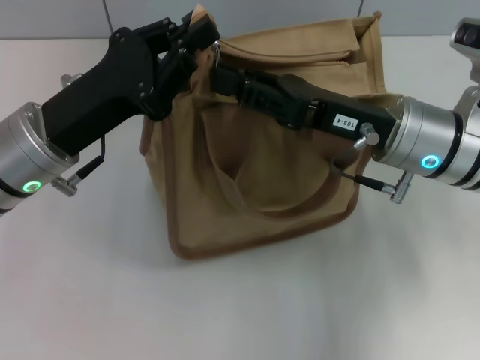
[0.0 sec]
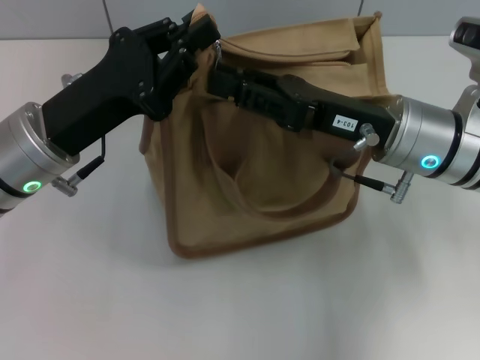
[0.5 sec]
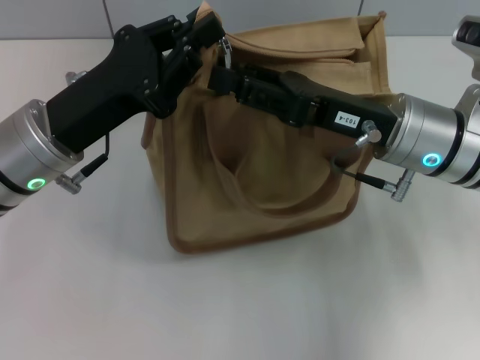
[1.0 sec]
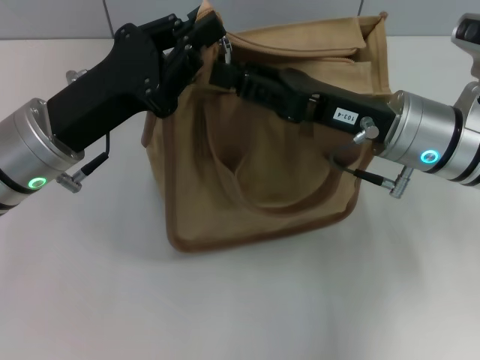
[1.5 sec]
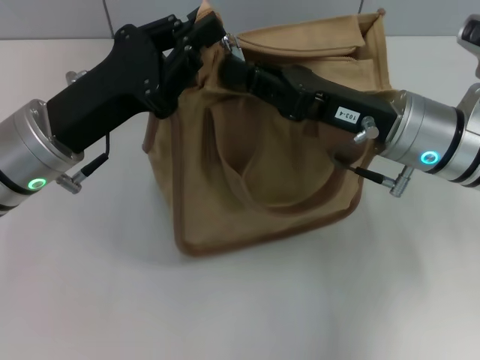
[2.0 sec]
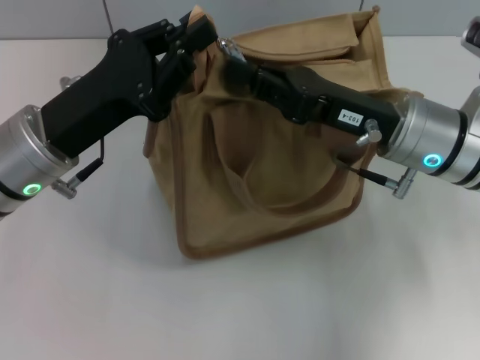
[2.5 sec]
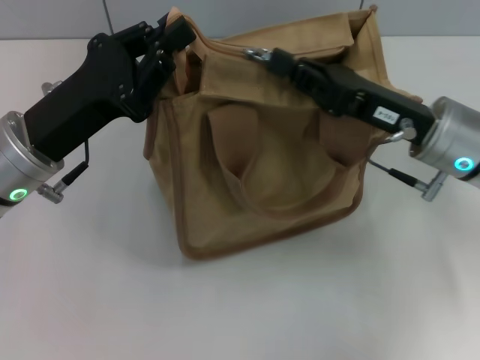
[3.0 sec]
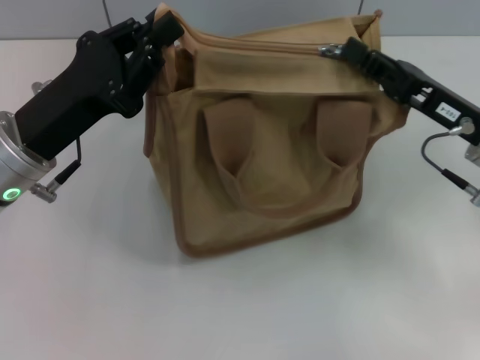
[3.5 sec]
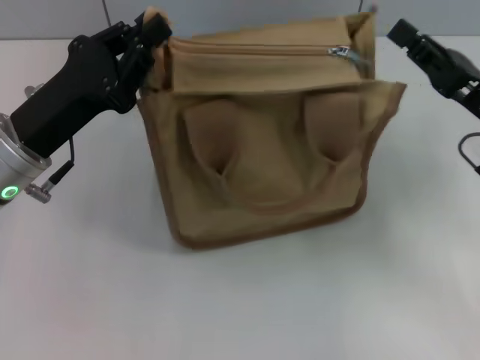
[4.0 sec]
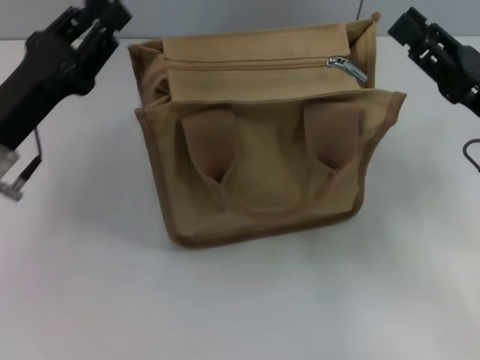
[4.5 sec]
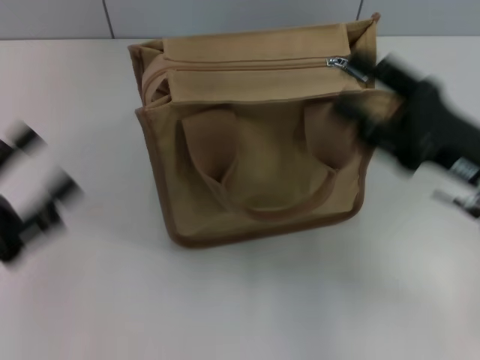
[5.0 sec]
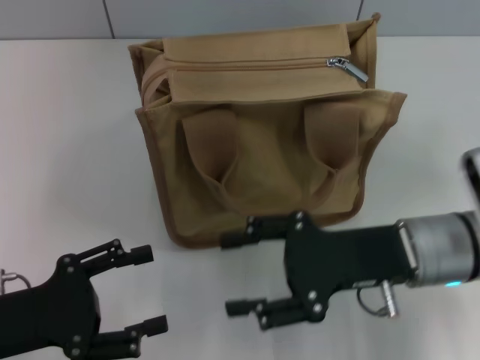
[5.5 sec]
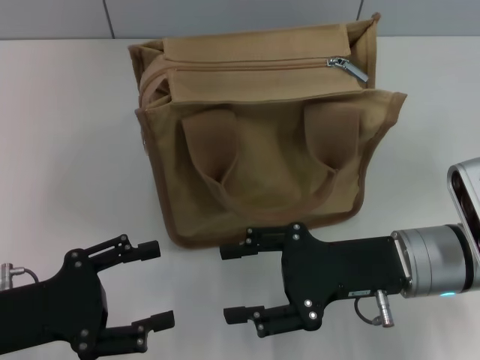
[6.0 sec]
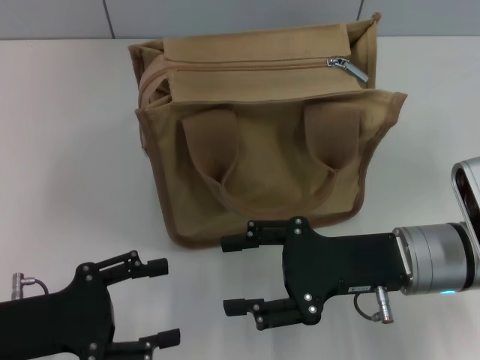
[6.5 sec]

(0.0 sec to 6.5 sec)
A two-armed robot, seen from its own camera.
Step, 0.0 sec - 3.5 sec: Pull up the zipper with your right hand.
0.0 sec - 2.0 sec: Both grippers stay put.
2.0 sec - 4.5 sec: The left gripper goes approximately 5 cm to the left. Meanwhile the right gripper heads to the right, covering about 10 cm.
4.5 sec - 6.5 sec: The right gripper goes approximately 10 cm to the left, and opens. The left gripper shifts roughly 10 cm backward, and opens up.

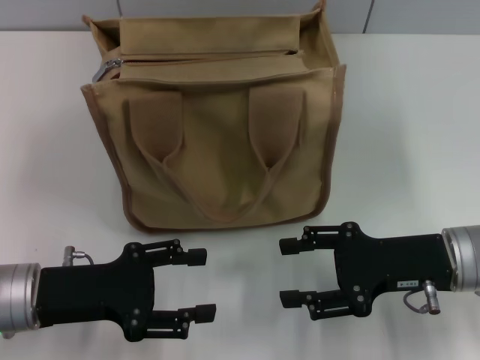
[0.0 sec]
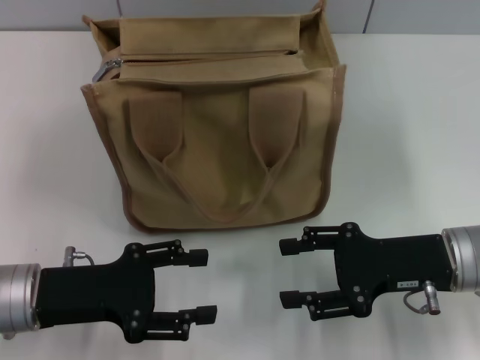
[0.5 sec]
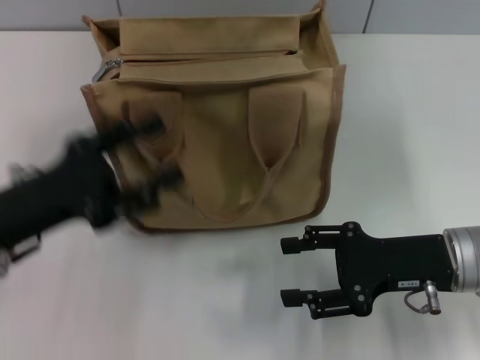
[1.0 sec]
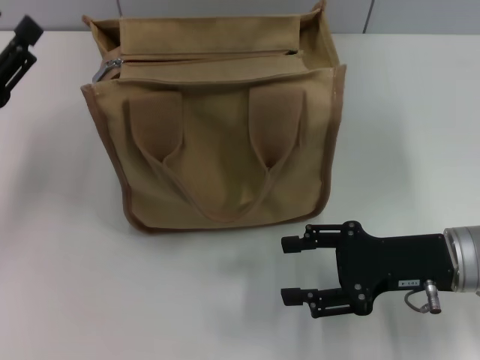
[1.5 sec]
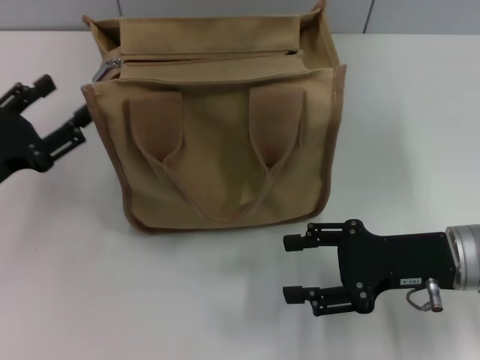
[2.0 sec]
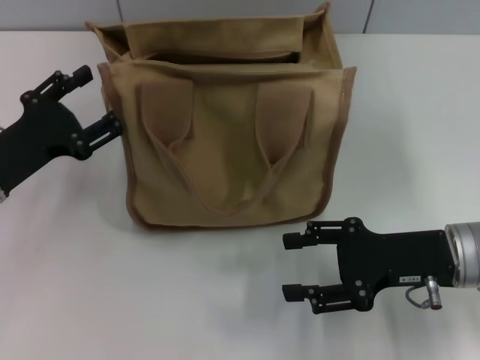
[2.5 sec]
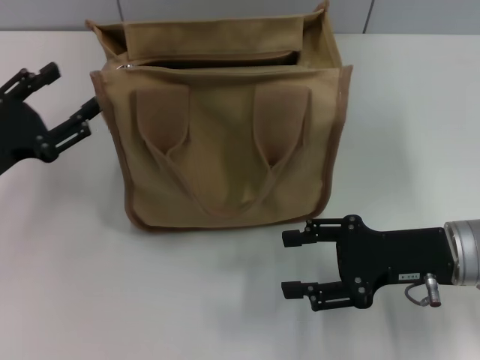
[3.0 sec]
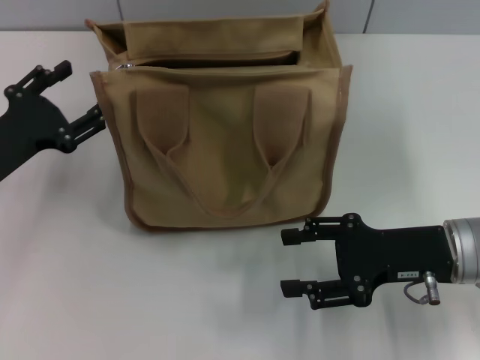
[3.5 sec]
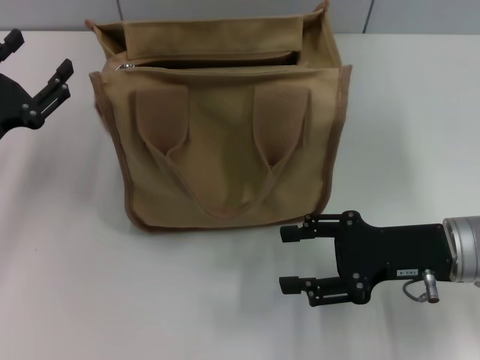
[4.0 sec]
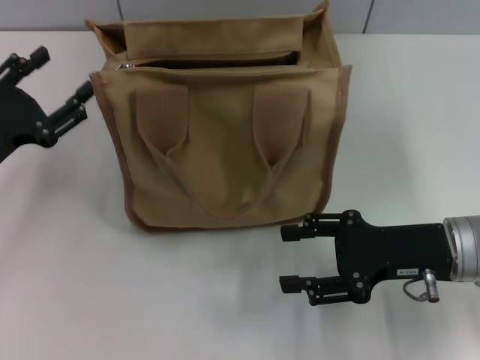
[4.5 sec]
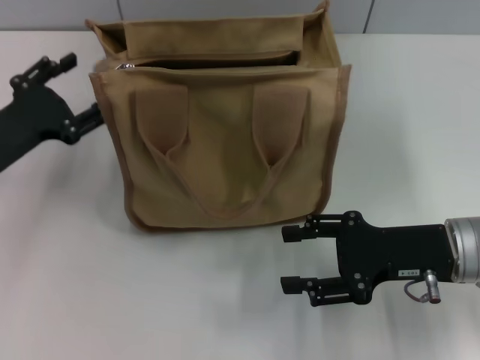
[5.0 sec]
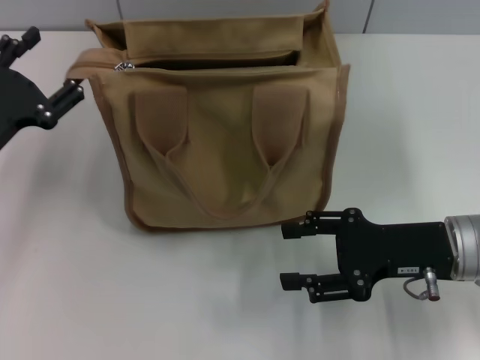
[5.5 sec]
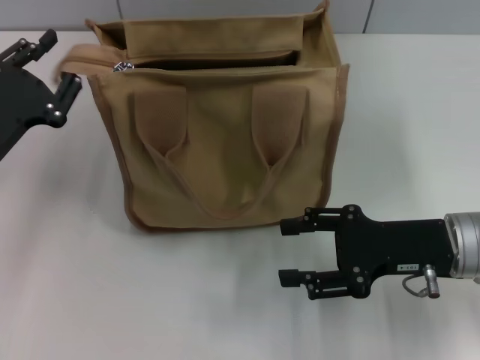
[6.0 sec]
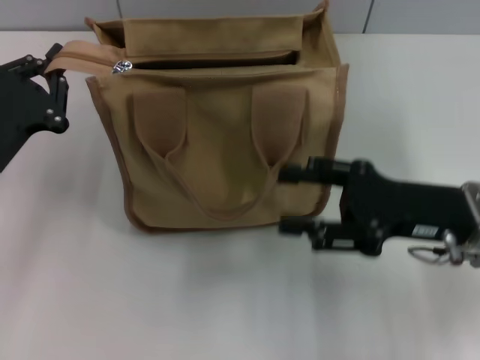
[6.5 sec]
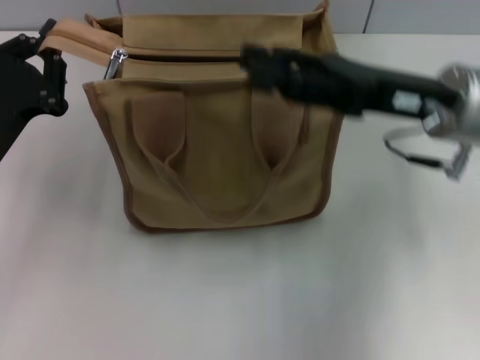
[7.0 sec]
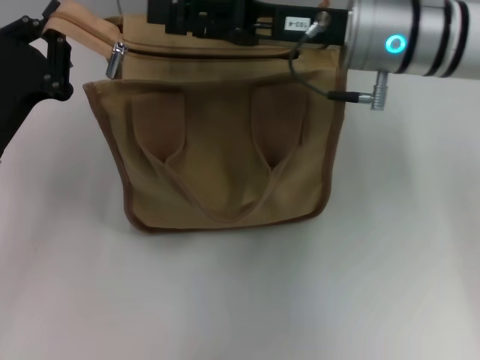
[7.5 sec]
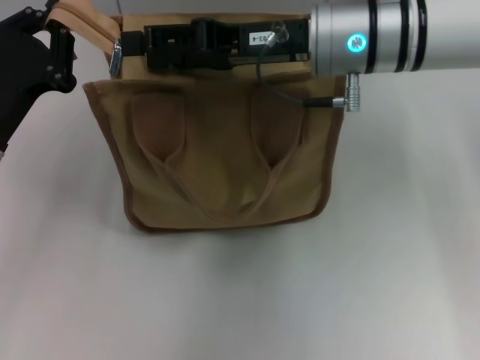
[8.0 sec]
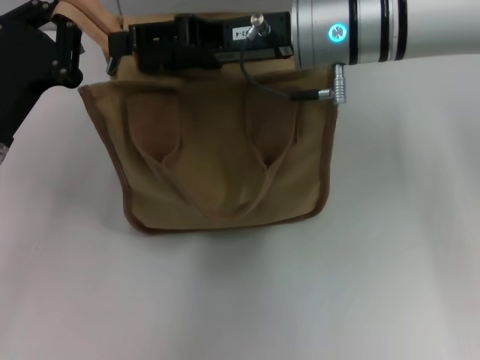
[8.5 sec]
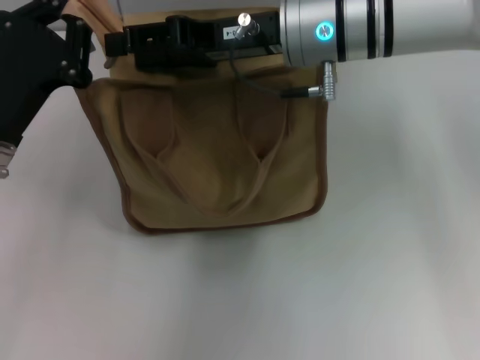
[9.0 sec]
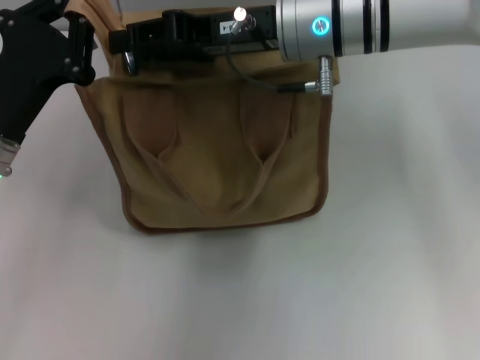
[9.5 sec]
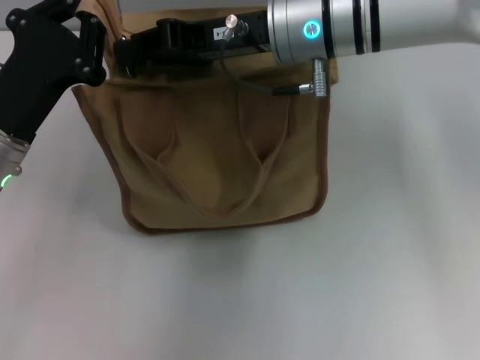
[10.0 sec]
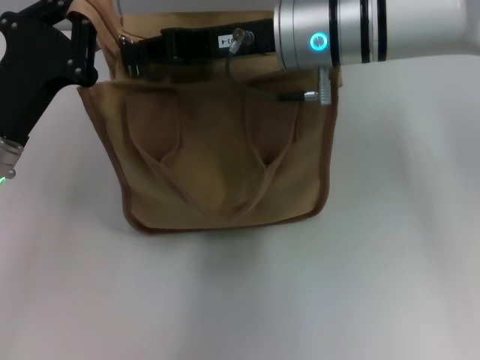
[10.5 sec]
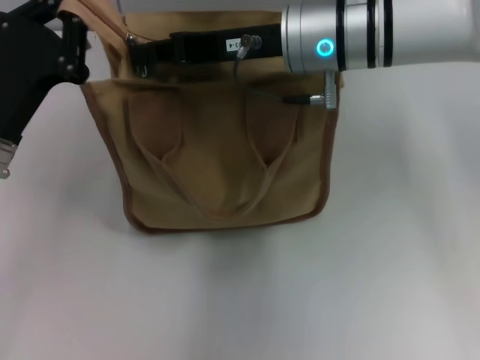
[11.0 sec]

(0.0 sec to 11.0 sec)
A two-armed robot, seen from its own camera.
0.0 sec - 2.0 sec: The left gripper goes roughly 5 cm to the left.
2.0 sec - 3.5 sec: The grippers stay close to where they were, moving slightly.
3.5 sec - 5.5 sec: There are only small adjustments of the grippers.
5.5 sec - 7.5 sec: The left gripper closes up, while the right gripper goes approximately 20 cm upward, forward and to the left.
9.0 sec - 11.0 sec: The right gripper closes up.

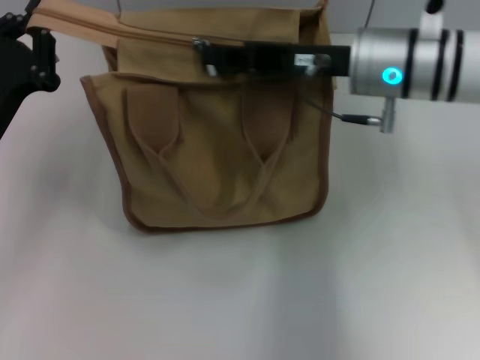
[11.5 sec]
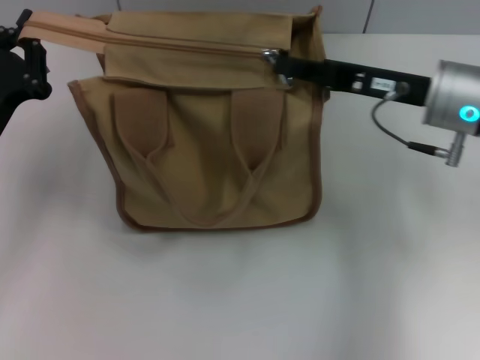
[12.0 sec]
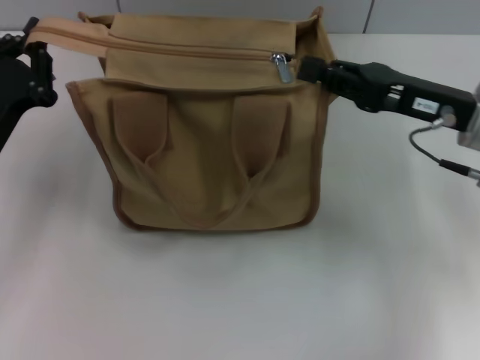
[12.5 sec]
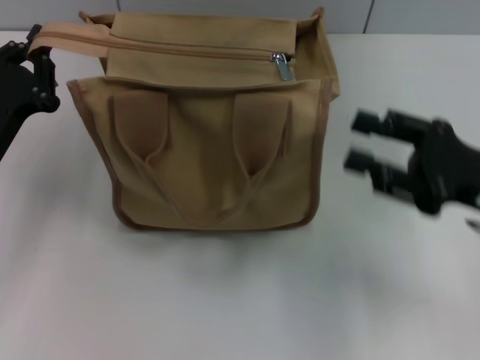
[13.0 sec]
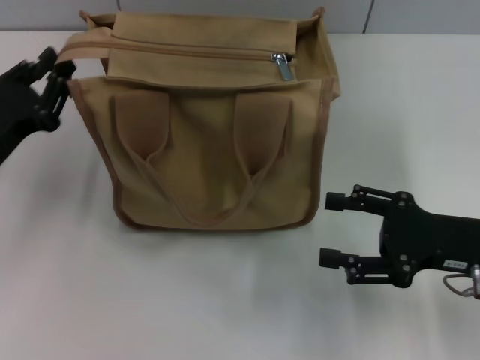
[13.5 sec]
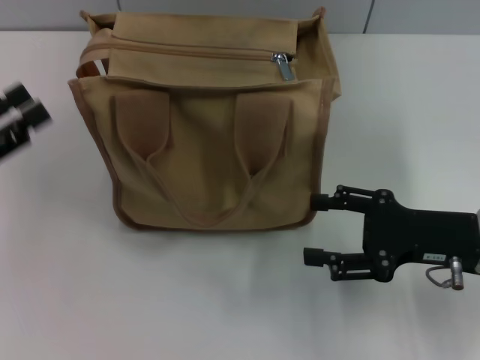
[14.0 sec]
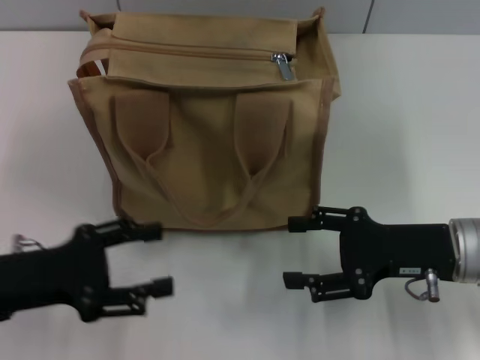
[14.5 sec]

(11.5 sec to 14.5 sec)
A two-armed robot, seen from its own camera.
11.5 sec - 13.0 sec: The right gripper is displaced to the right and backward by about 20 cm, and opens its fingers.
13.0 sec - 14.5 sec: The left gripper heads backward, covering some 5 cm, and opens its fingers. Meanwhile the right gripper changes place by some 5 cm, and opens.
